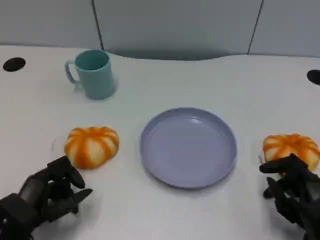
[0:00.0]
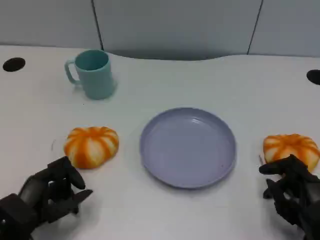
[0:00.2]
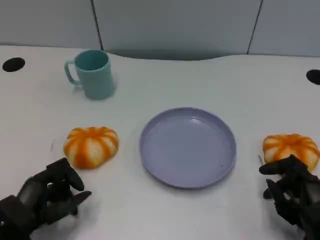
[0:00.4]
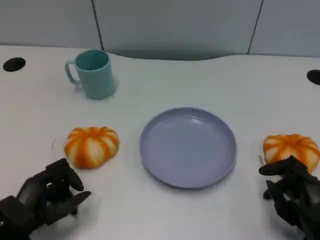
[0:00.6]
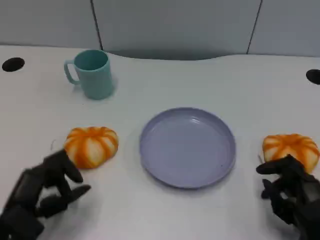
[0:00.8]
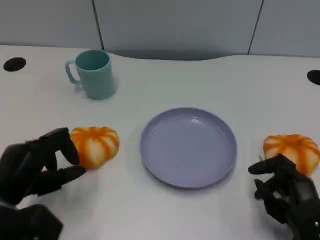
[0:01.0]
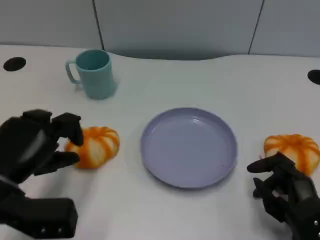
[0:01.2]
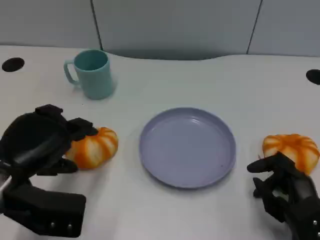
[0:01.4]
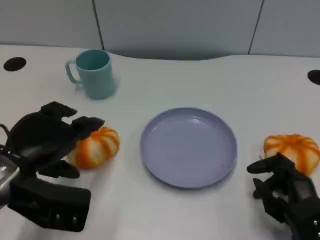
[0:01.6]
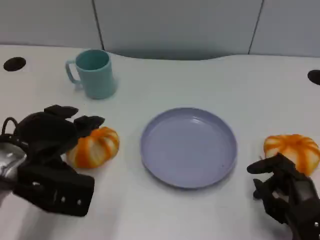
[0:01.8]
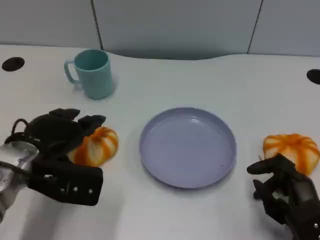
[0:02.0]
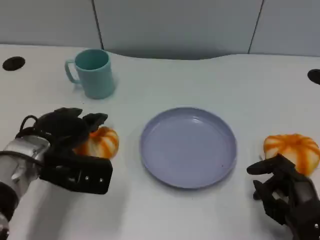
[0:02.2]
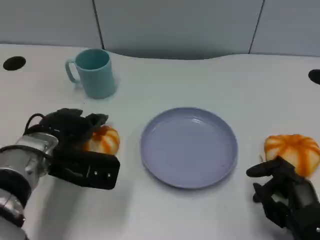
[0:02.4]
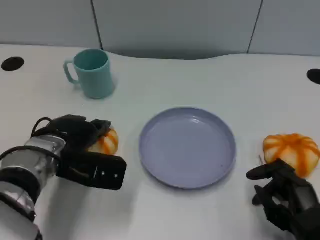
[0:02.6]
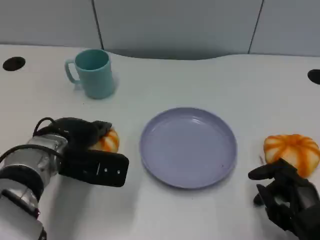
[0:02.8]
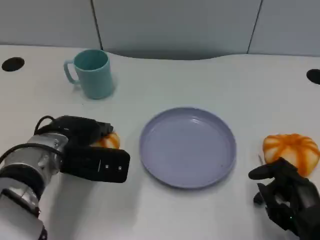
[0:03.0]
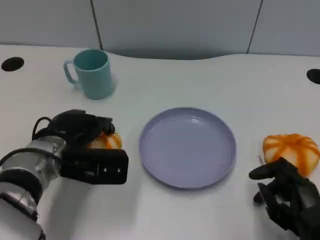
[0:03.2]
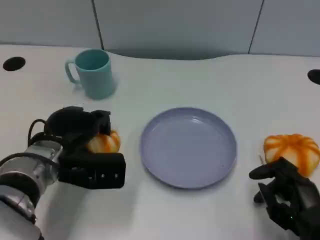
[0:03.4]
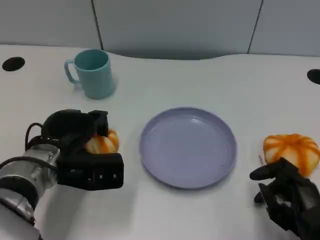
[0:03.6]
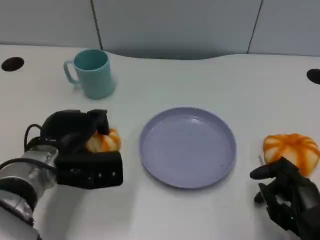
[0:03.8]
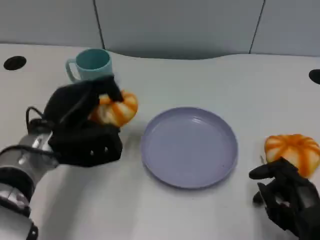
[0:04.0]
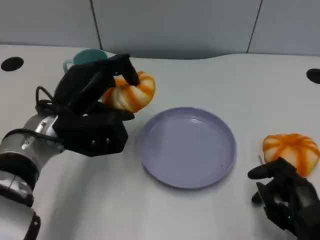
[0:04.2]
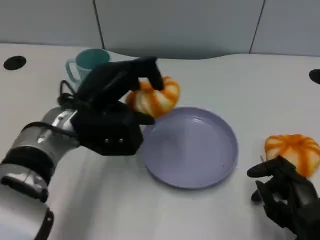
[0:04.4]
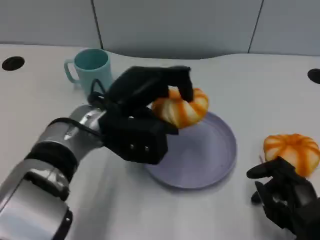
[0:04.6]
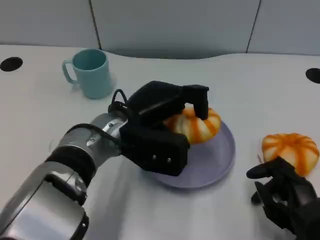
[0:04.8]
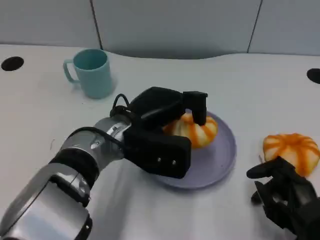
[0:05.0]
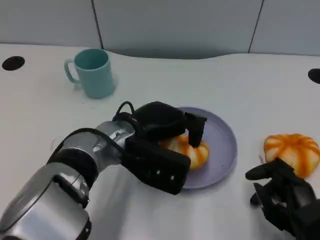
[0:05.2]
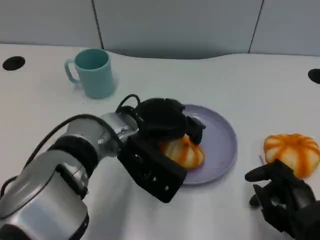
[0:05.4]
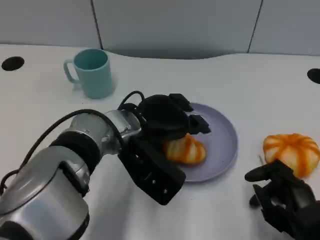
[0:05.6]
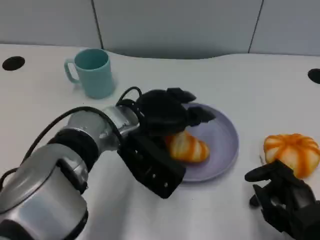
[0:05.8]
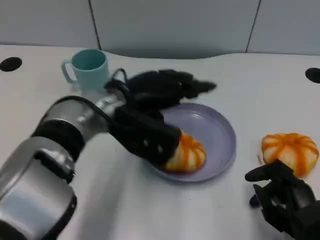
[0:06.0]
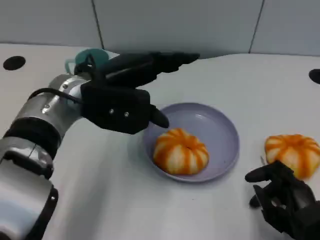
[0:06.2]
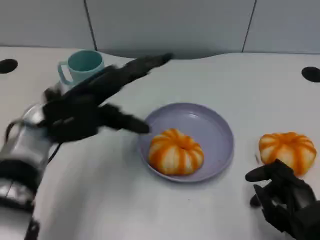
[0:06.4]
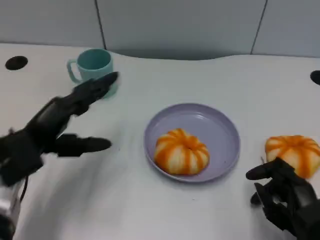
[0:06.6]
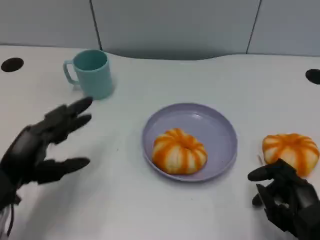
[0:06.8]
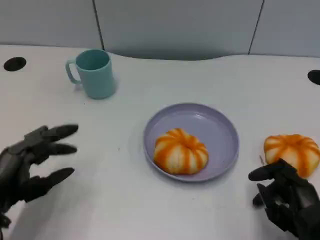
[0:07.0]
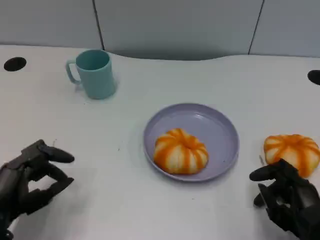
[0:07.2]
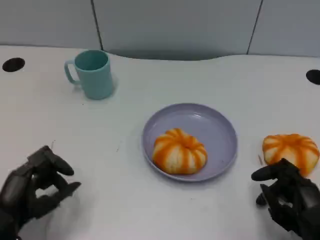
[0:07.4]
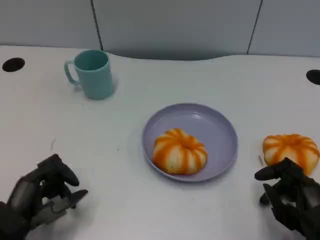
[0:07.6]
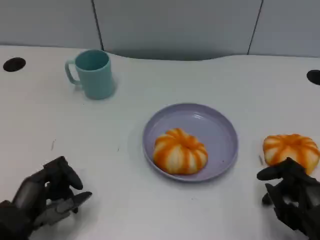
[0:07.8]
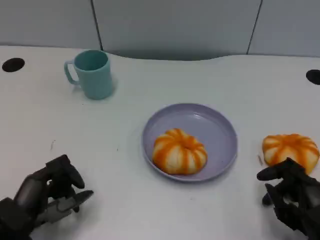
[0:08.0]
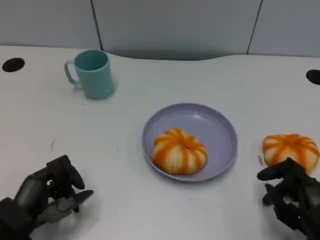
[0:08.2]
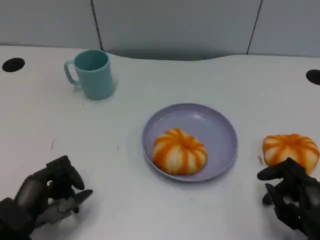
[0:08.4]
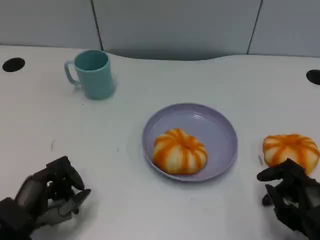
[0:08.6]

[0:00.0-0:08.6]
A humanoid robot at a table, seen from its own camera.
Task of the whole recording: Grasp the bread from the table and place it into the plate.
0:00.0 to 0:01.4: The left hand heads upward, covering about 10 cm.
0:01.4 to 0:02.8: The left hand is displaced forward and to the right by approximately 10 cm.
0:02.8 to 0:04.4: The left hand moves upward, about 5 cm.
0:04.4 to 0:05.8: The left hand goes roughly 5 cm to the right.
0:05.8 to 0:07.2: The left hand goes some 25 cm to the left, backward and downward.
0:07.2 to 0:08.6: There are only small adjustments of the hands.

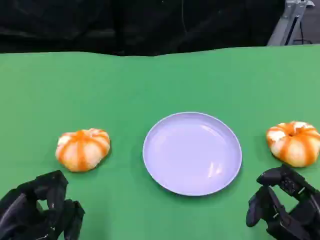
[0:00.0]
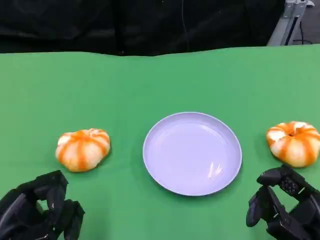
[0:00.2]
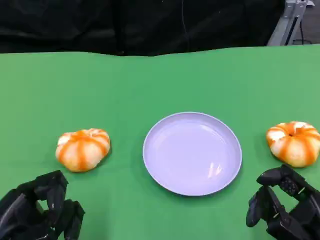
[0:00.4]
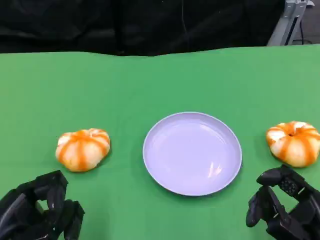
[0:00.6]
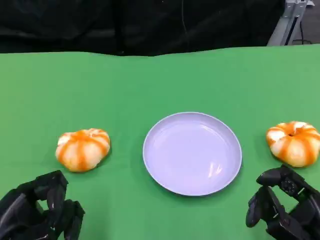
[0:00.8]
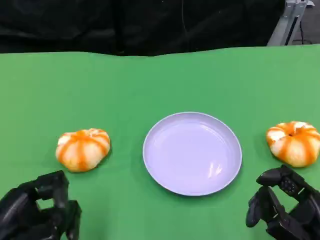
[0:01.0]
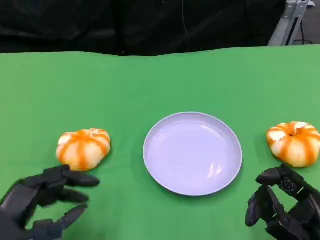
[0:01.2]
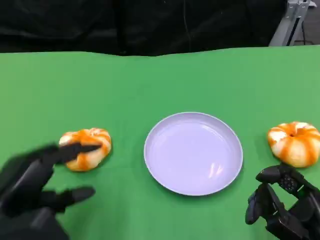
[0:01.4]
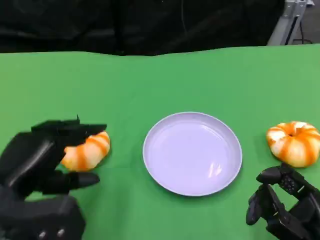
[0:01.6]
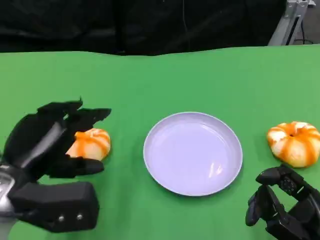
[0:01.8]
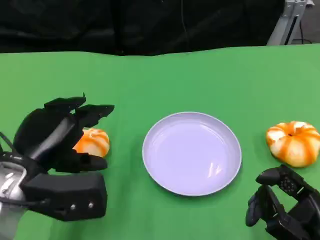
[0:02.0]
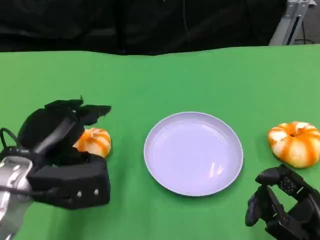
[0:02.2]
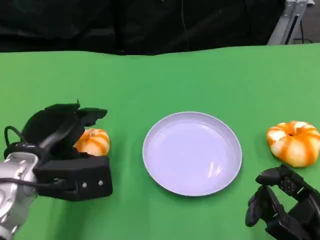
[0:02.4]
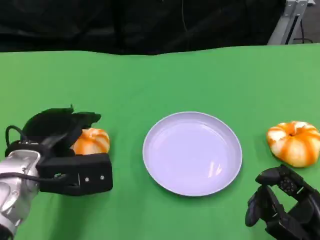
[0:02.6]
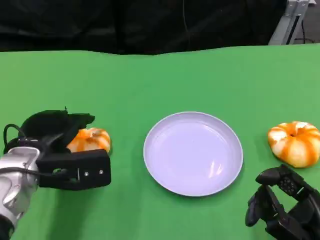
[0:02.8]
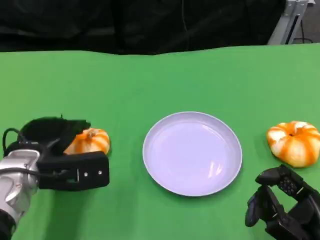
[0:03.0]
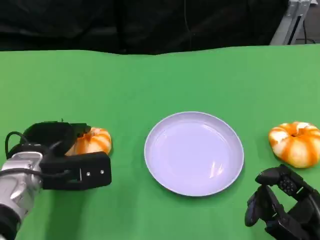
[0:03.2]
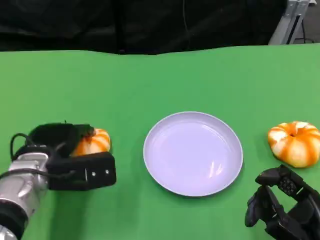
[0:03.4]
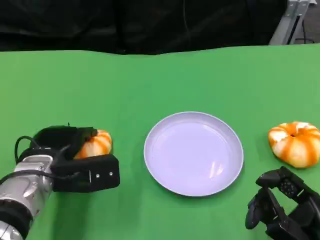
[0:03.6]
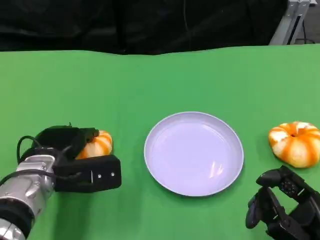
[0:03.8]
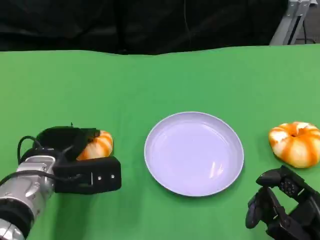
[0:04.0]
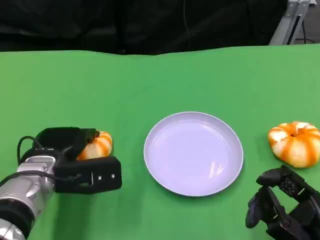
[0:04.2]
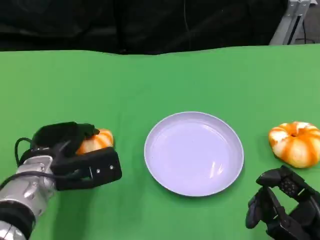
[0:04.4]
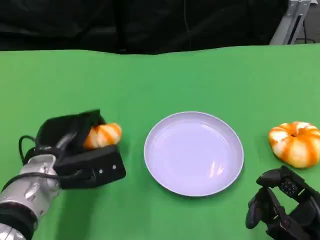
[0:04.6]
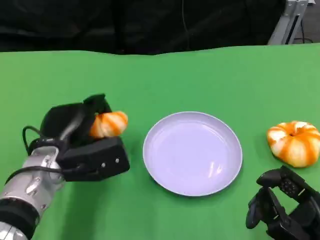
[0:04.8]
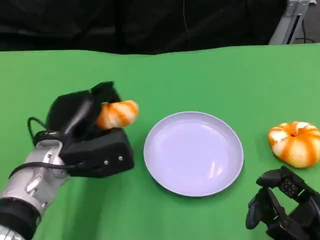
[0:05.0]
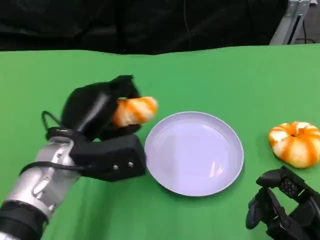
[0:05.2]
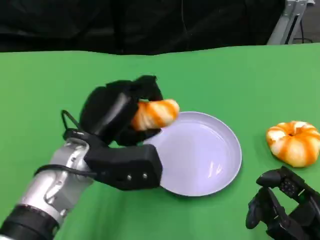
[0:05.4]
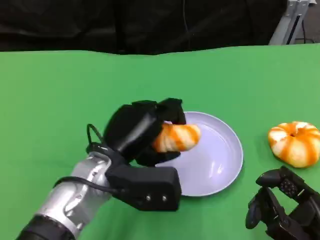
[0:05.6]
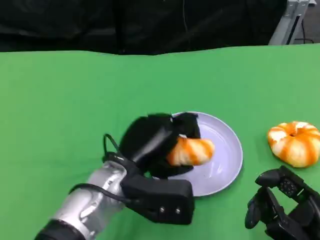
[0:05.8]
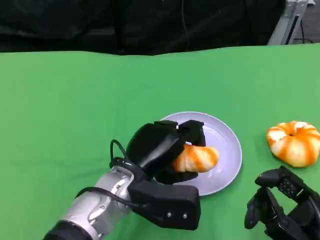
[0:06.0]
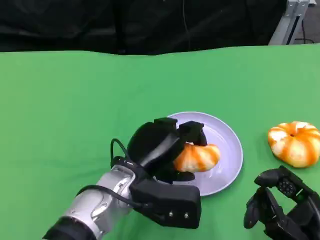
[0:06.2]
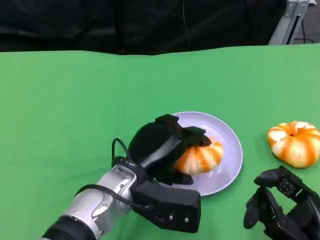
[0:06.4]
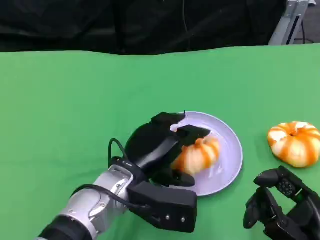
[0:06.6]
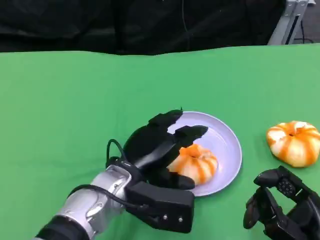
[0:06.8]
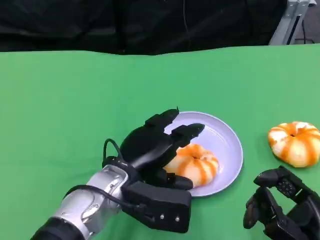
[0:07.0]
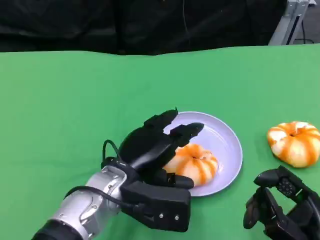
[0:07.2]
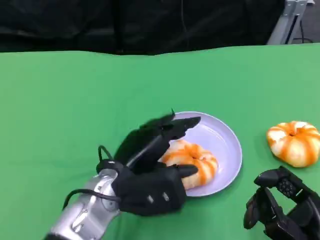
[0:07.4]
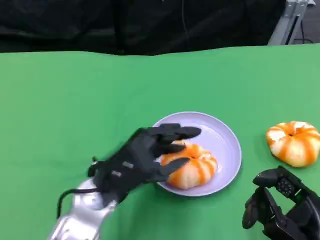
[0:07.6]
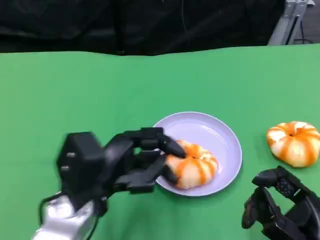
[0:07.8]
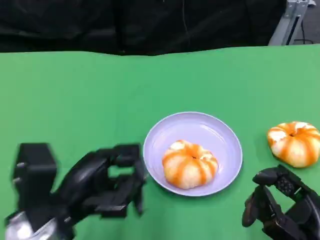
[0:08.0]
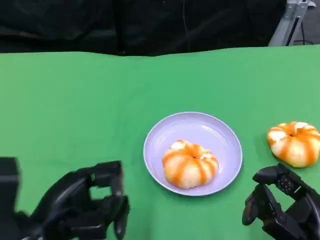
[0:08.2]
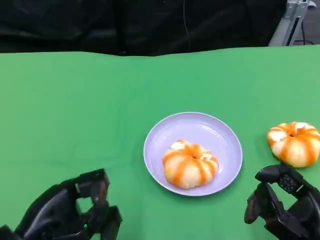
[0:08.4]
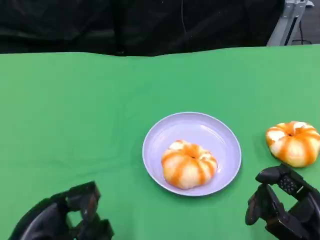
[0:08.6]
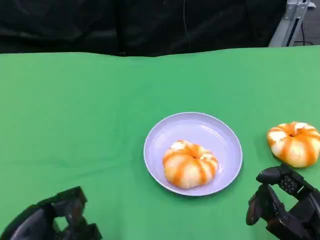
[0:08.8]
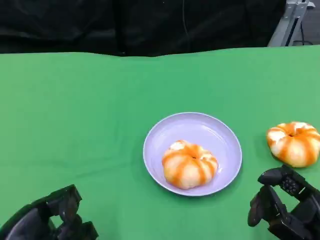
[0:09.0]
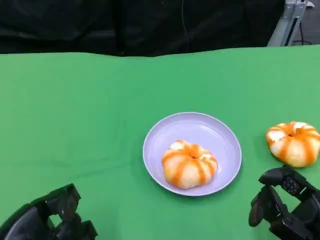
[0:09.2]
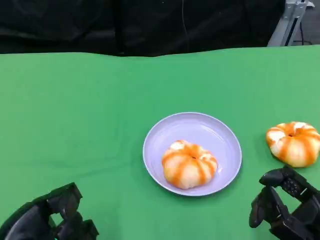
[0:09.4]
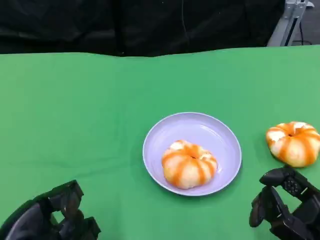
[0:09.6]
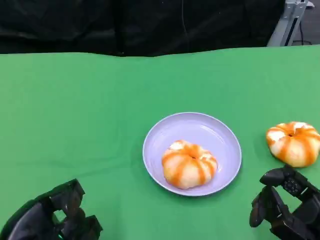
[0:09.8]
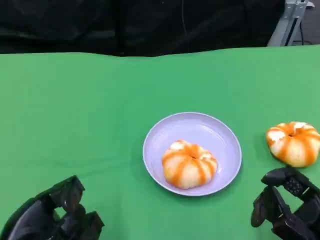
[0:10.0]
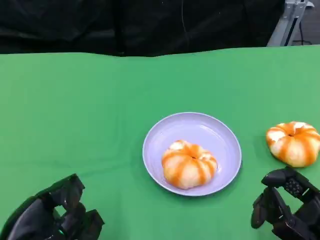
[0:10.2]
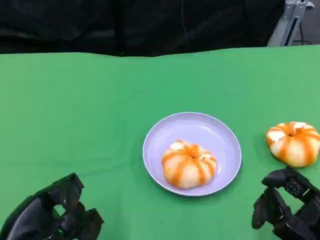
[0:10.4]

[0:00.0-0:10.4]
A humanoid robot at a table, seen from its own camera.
Task of the whole recording: Grasp the bread from the table and place it into the plate.
0:00.0 to 0:01.4: The left hand shifts by approximately 5 cm.
0:01.4 to 0:03.0: The left hand travels forward by some 10 cm.
0:03.0 to 0:04.4: There are only small adjustments of the hands.
0:04.4 to 0:06.0: The left hand moves to the right, approximately 10 cm.
0:07.4 to 0:09.0: The left hand moves to the left and backward, roughly 20 cm.
0:09.0 to 0:10.4: Both hands stay about where they are.

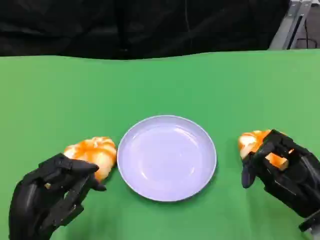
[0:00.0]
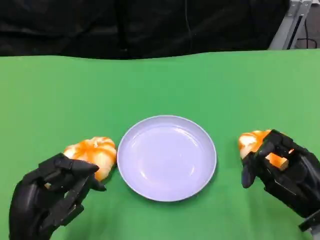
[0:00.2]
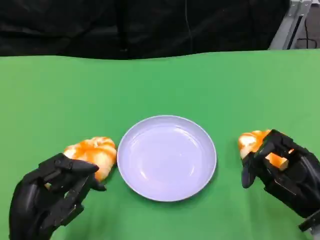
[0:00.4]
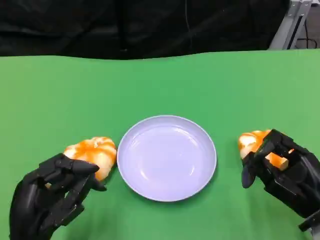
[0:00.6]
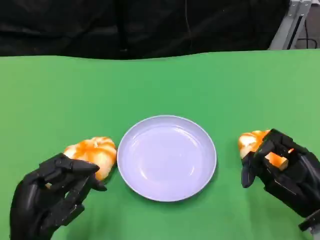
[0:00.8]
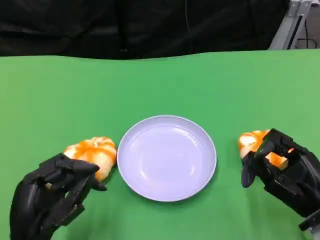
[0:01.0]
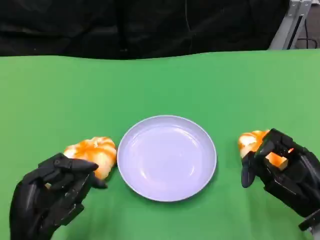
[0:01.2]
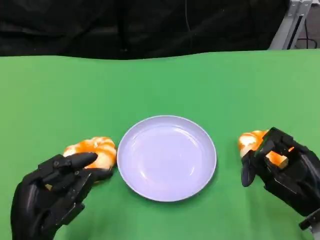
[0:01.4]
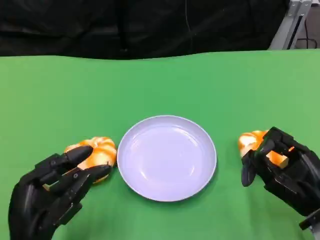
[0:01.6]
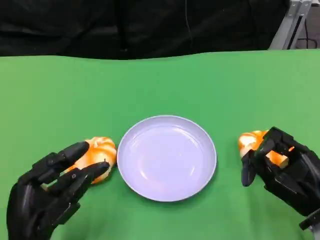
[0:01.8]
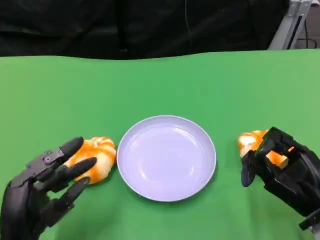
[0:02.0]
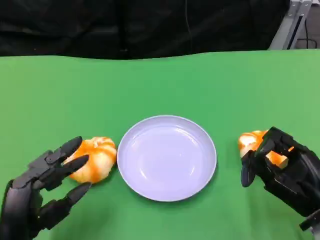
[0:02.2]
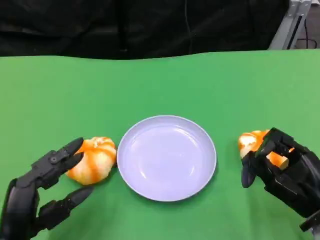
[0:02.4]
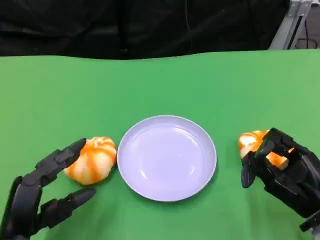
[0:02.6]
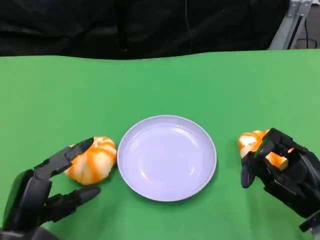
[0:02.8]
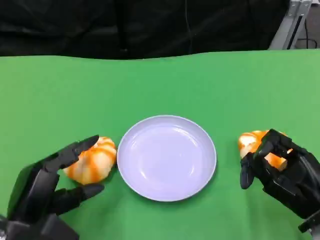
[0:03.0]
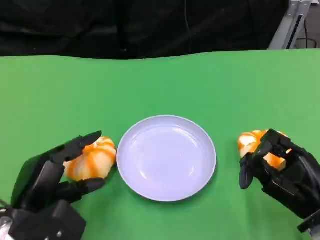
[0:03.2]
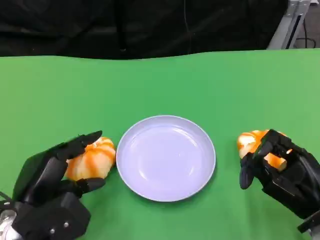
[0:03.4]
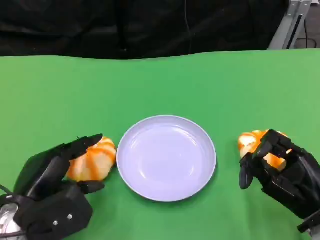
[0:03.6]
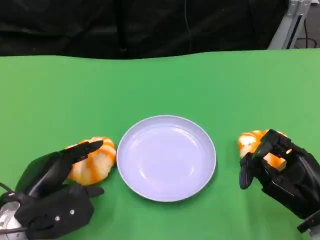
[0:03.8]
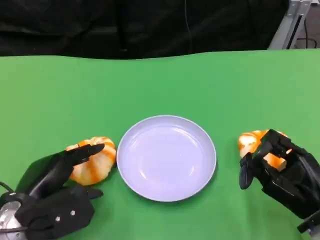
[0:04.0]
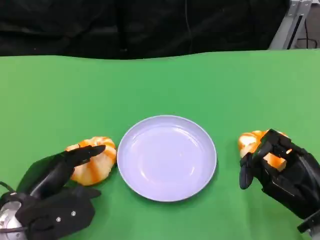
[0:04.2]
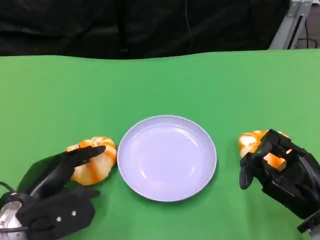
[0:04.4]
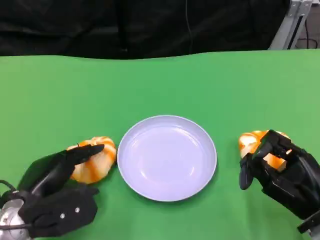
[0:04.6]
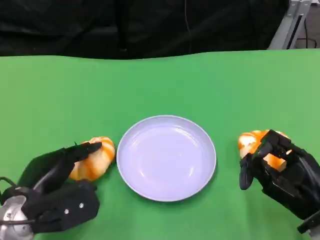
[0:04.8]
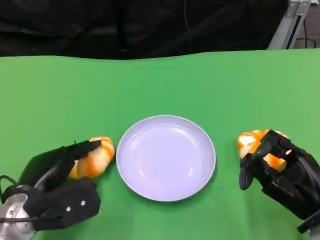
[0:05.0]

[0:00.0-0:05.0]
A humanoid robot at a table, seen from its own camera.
Task of the whole recording: Grasp the bread from the table and place it into the plate.
0:00.0 to 0:01.6: The hands move only a little.
0:01.6 to 0:03.4: The left hand moves some 5 cm.
0:03.4 to 0:05.0: The hands move only a little.
